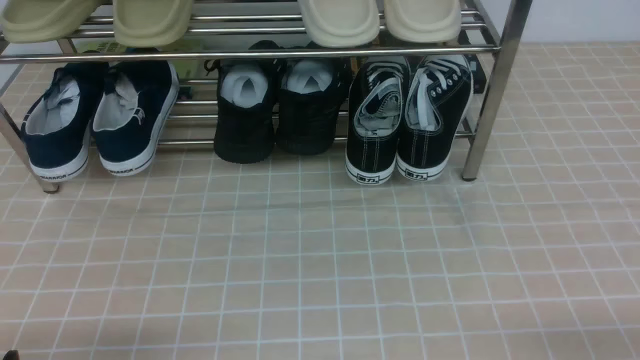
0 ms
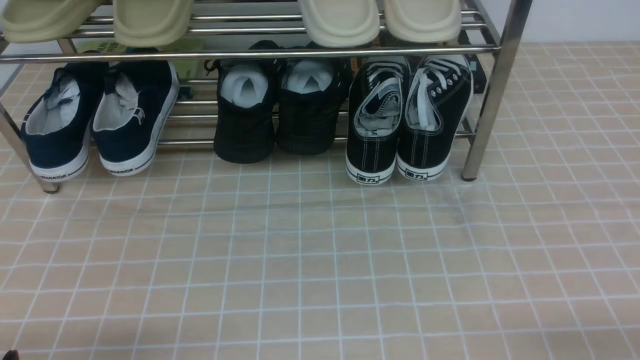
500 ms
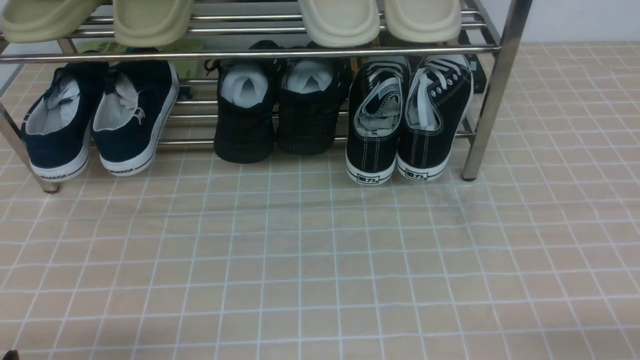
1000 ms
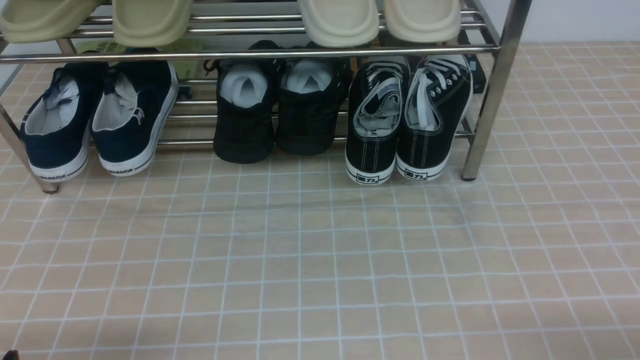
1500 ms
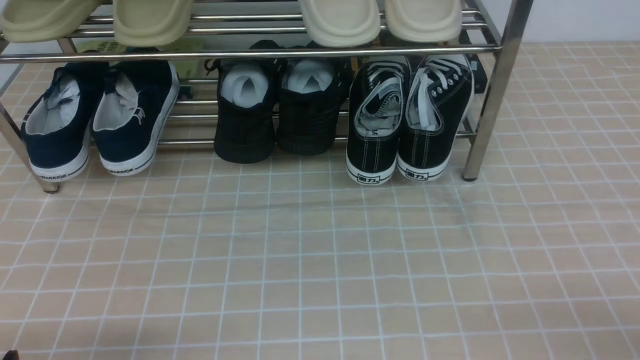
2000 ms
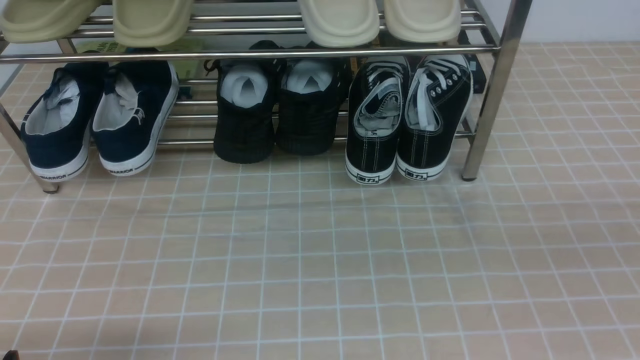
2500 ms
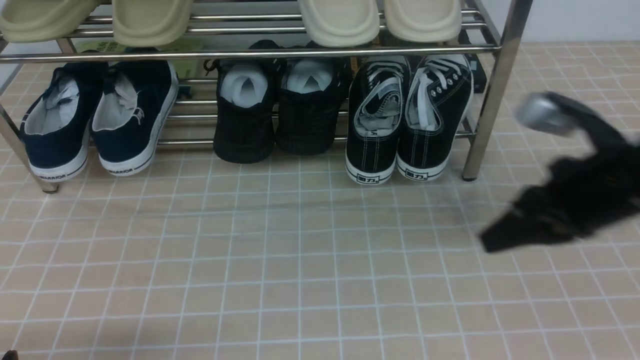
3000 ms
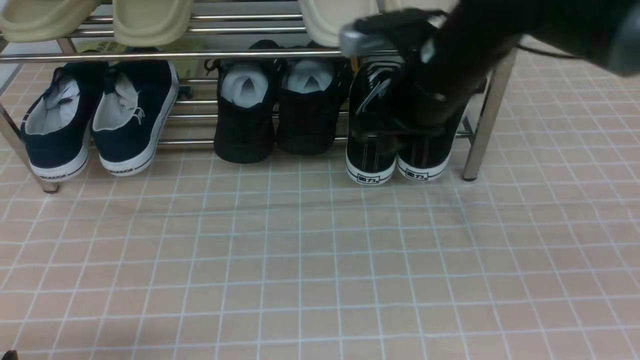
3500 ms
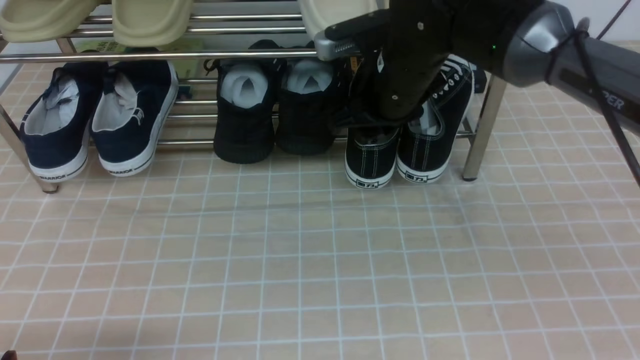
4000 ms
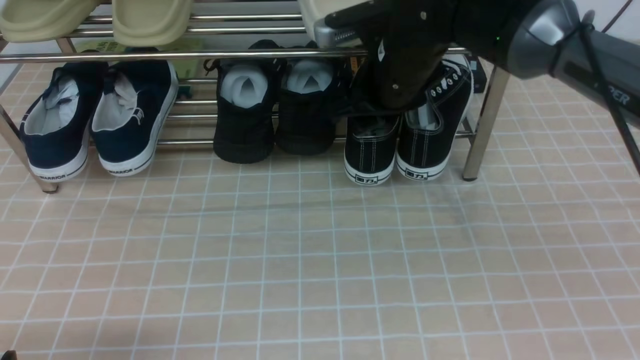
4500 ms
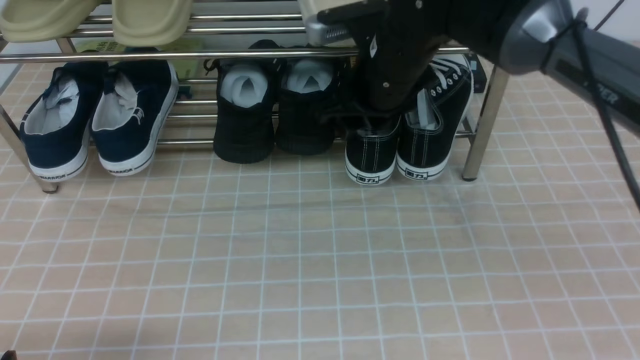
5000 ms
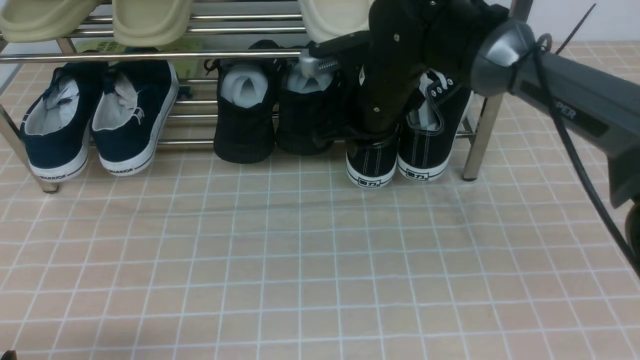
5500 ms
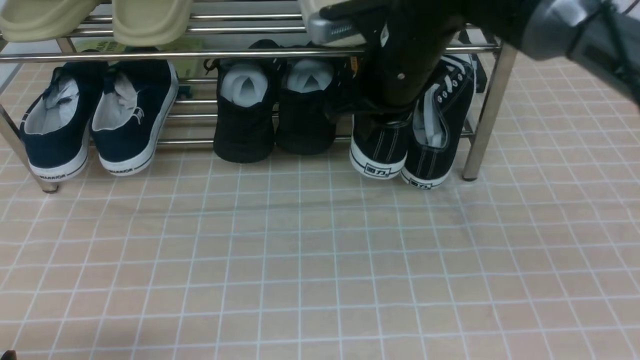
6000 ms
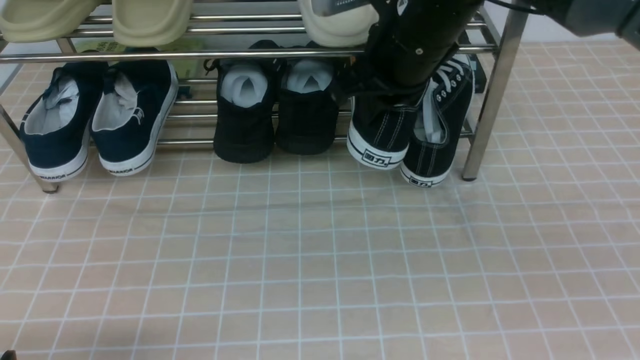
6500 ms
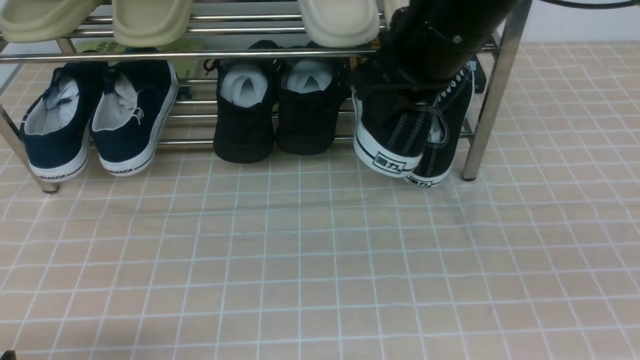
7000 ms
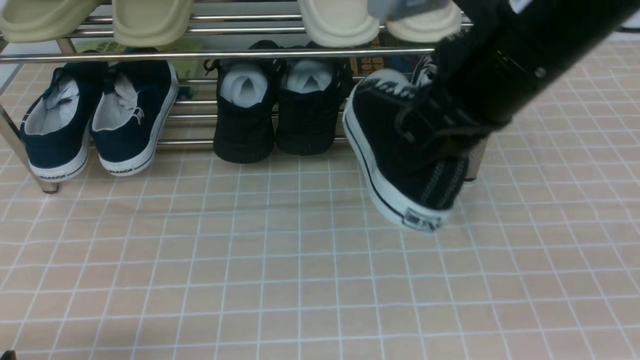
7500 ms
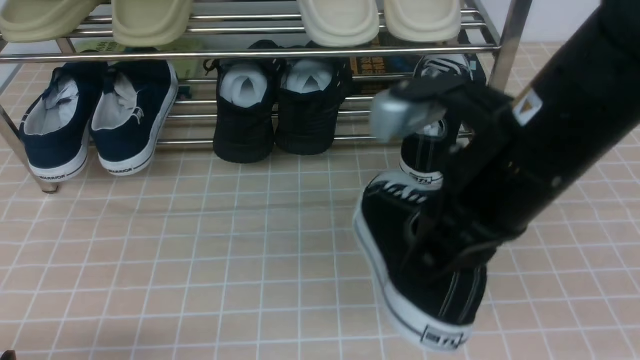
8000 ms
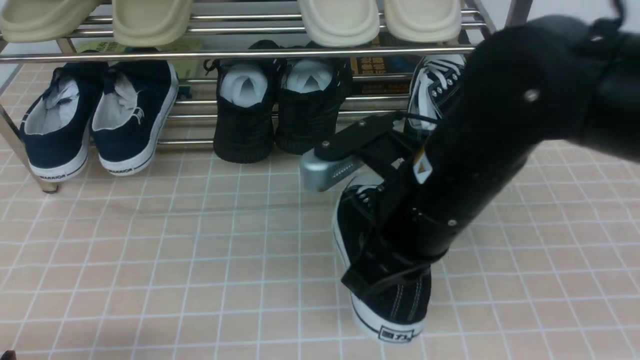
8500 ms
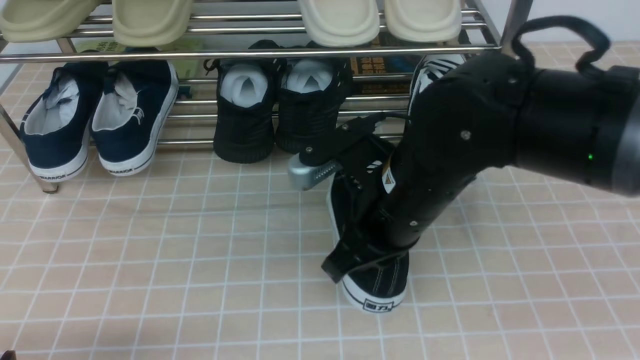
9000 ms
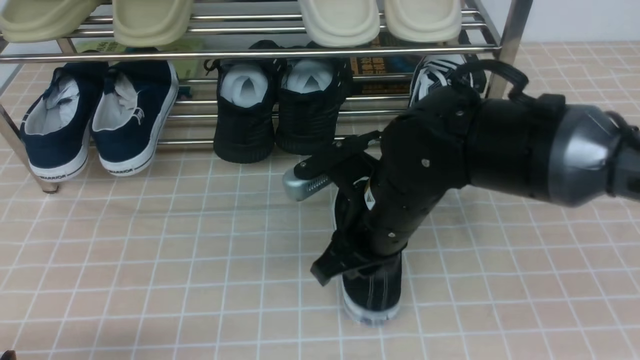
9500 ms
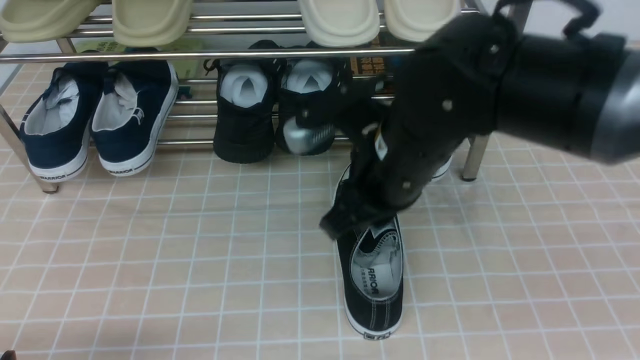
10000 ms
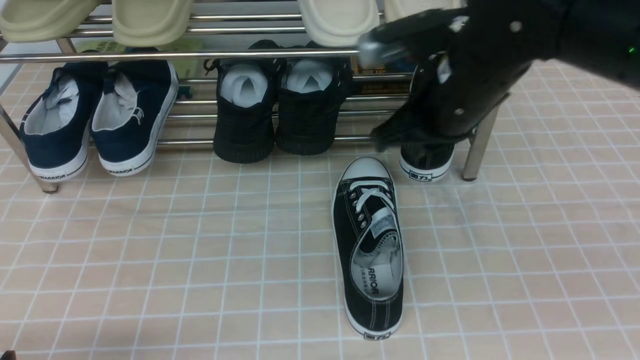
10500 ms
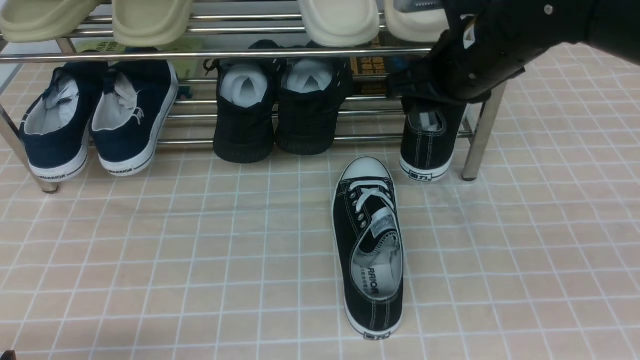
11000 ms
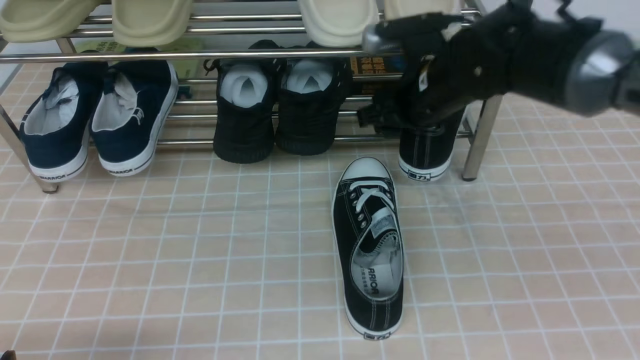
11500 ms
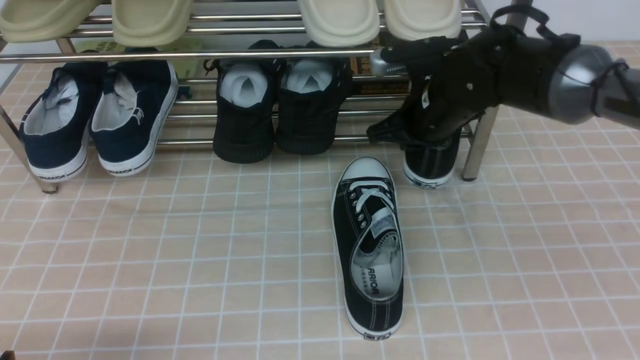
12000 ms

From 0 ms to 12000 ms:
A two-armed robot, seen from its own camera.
Step, from 0 ms to 5000 ms: use the right arm to clamp a shoe on the right side of the shoe rack.
Step, from 6000 ms to 9500 ms: use the right arm to take out the clamped shoe from the shoe rack and put it down.
From 2000 ms to 4000 ms: The right gripper shifts approximately 40 cm forward and to the left, and closes and opens again.
From 4000 ms to 6000 ms: The right gripper closes.
From 6000 ms to 8000 ms: The right gripper goes some 15 cm backward.
From 8000 ms to 10000 ms: The right gripper travels forward, downward and to the left by some 10 cm.
From 10000 ms to 12000 ms: The right gripper shifts some 15 cm forward and to the right, and opens, then closes once more.

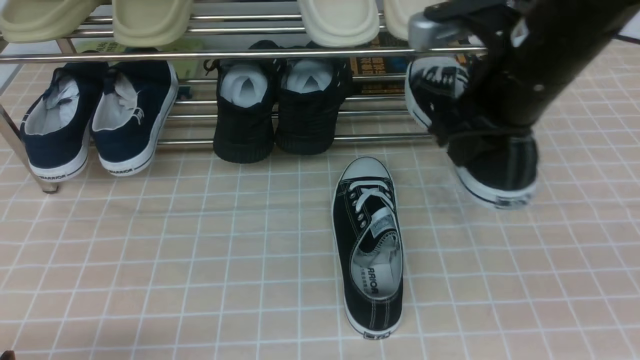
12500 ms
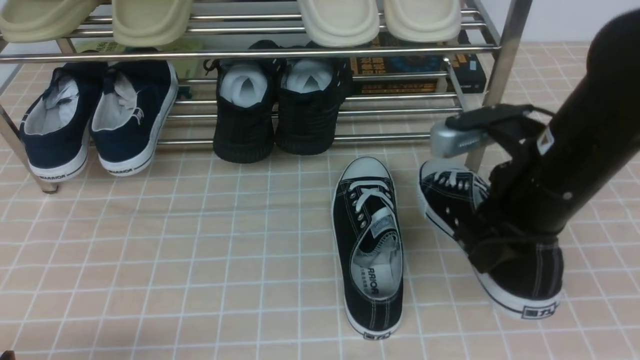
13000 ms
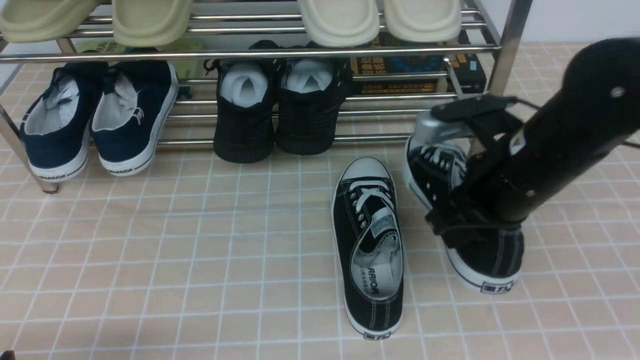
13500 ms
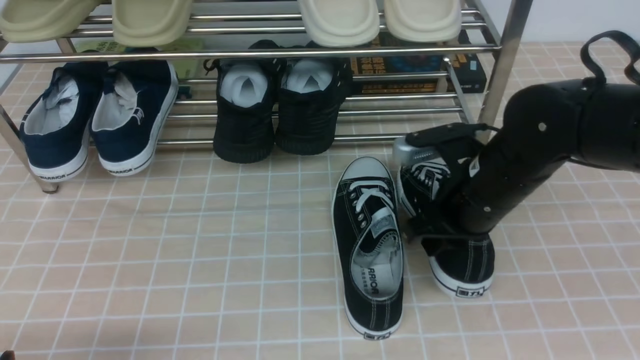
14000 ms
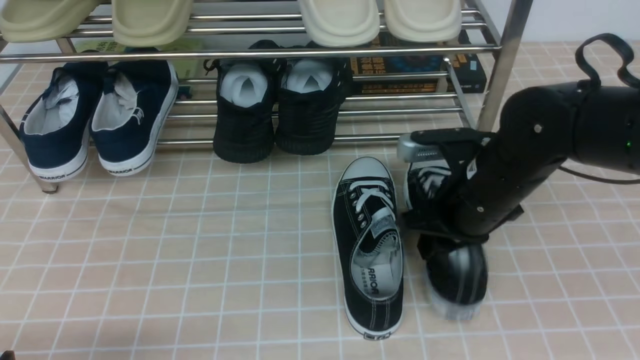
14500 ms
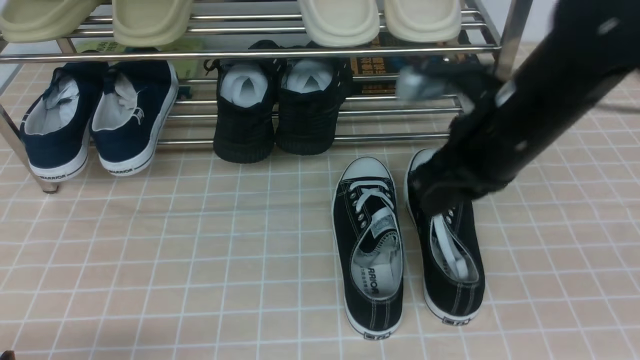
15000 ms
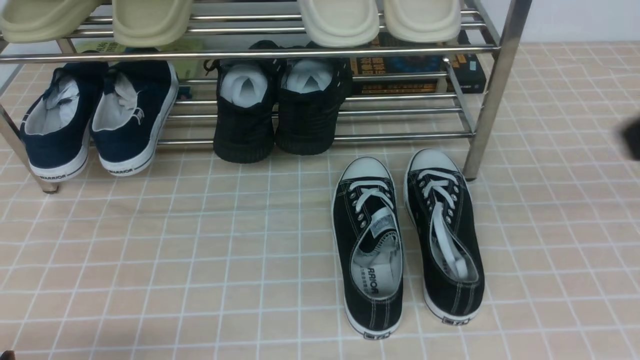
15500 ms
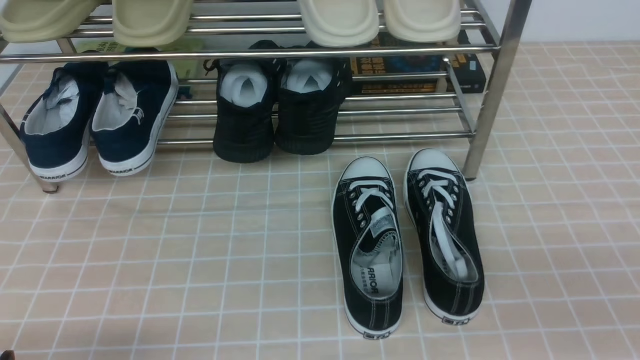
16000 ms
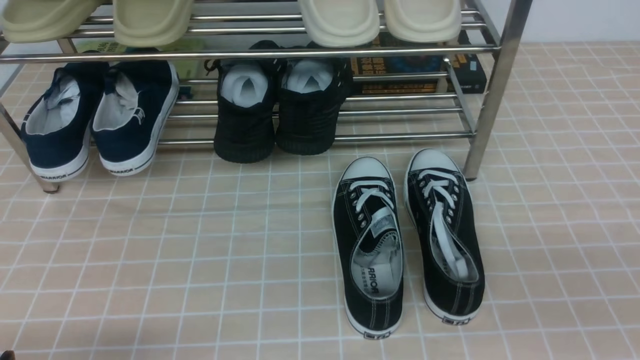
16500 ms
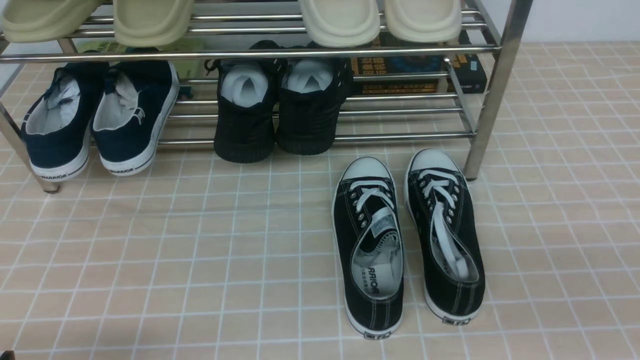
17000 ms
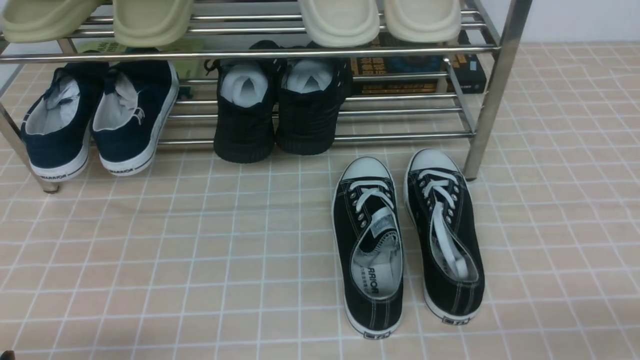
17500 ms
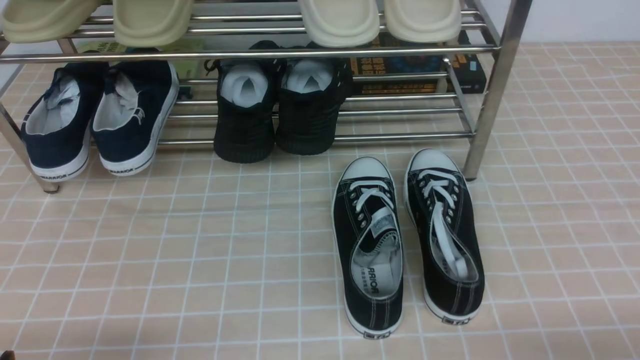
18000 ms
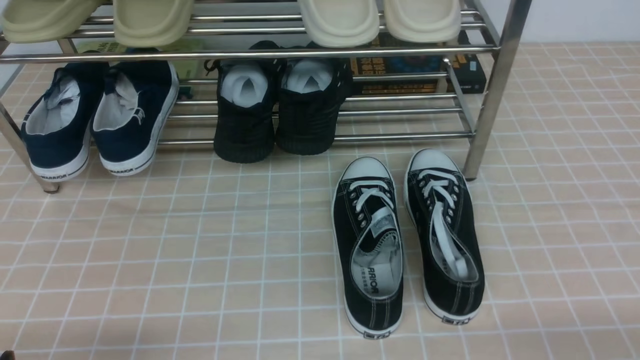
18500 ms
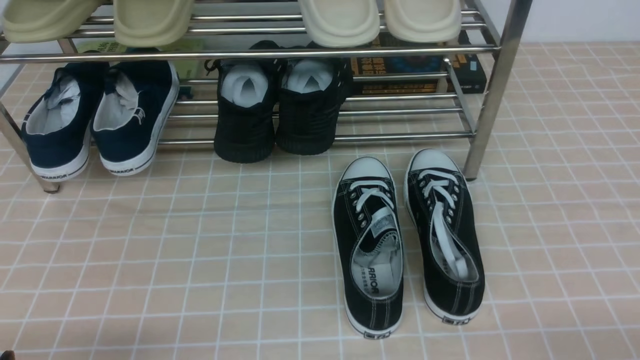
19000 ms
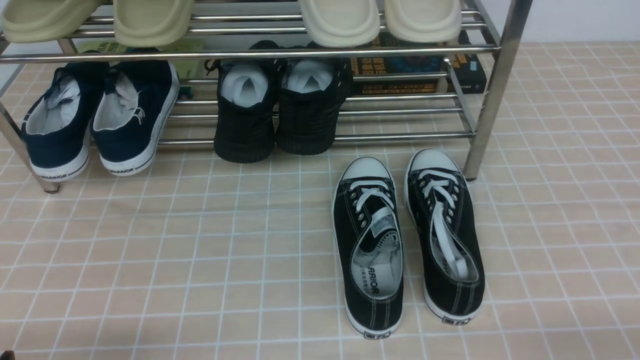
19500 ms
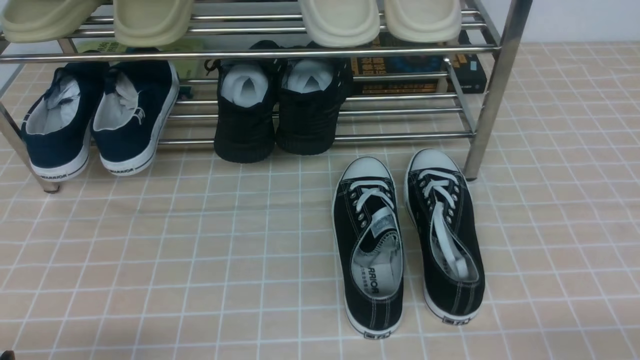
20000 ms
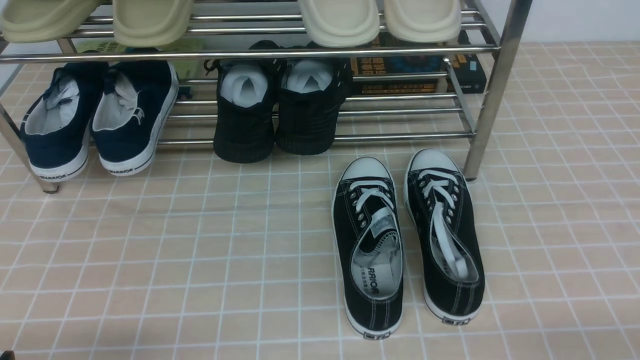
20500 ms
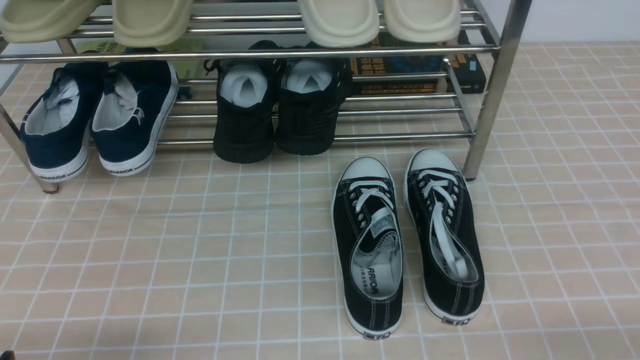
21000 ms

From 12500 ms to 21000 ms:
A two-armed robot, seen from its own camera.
Step, from 12500 ms to 15000 ms: use the right arm to take out the clamped shoe from the shoe rack and put it down.
From 12500 ms to 14500 ms: The right gripper moves downward, some 10 cm, and opens.
From 14500 ms to 16500 ms: The right gripper heads backward and to the right, covering roughly 30 cm, and closes its fingers.
